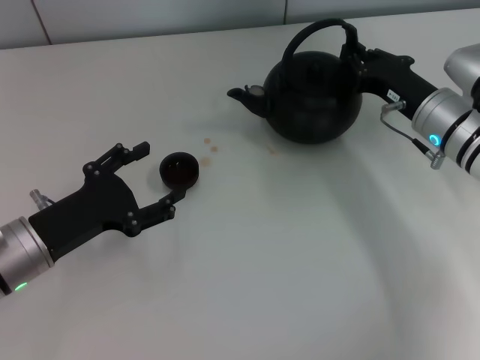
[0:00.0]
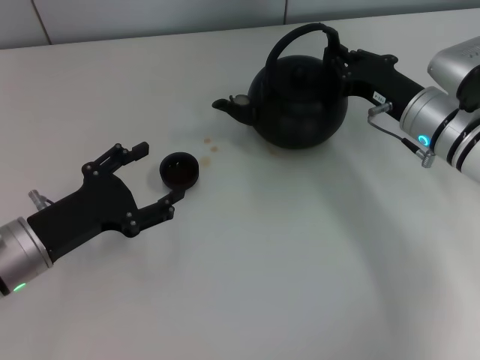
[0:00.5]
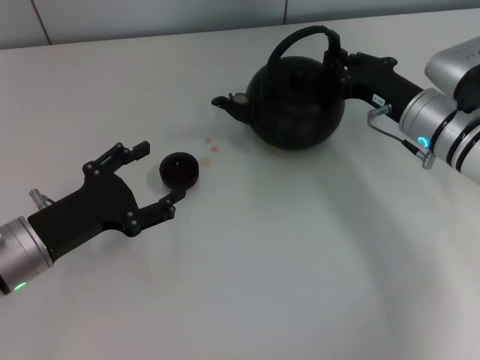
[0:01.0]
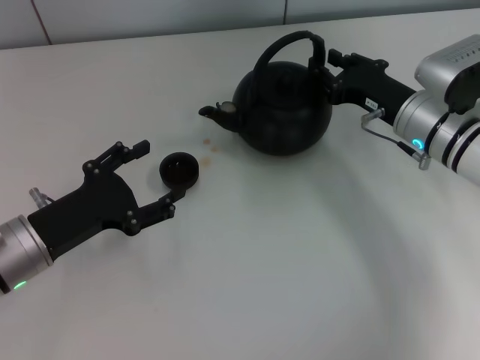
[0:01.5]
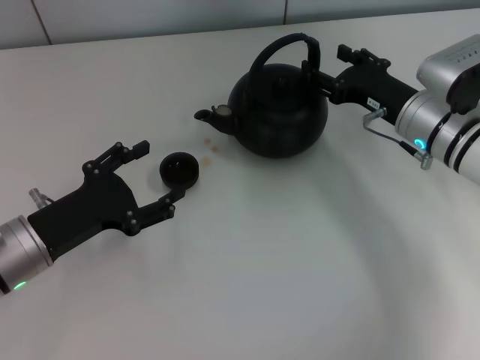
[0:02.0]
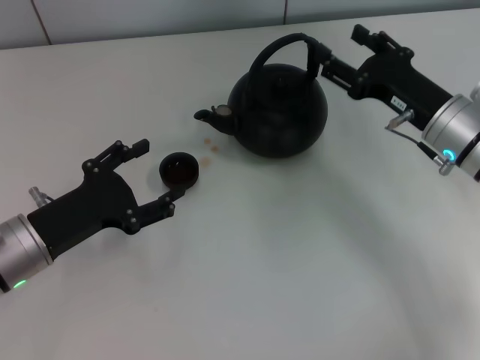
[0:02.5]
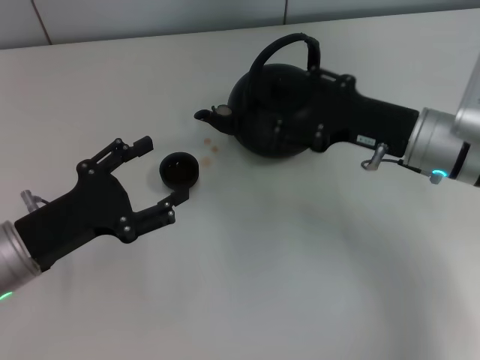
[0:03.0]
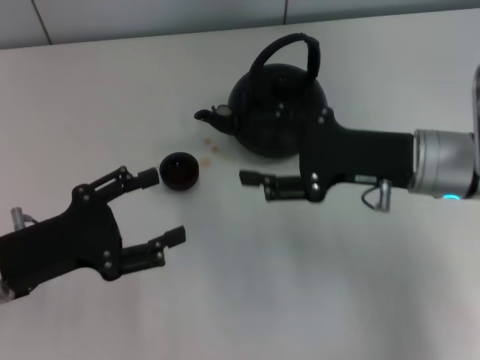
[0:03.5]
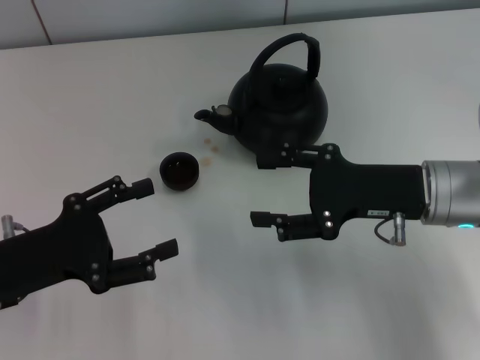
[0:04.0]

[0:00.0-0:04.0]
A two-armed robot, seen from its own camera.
Task of the whole recording: Grasp the handle of the teapot with one hand and pour tea into the teacup.
Step, 0:00.0 to 0:02.0: Put down the teapot with the right gripper.
0:00.0 to 0:02.0: The right gripper opens its fingers.
0:02.0 to 0:04.0: The left gripper shifts by roughly 5 cm. The right gripper moves backward, some 10 cm.

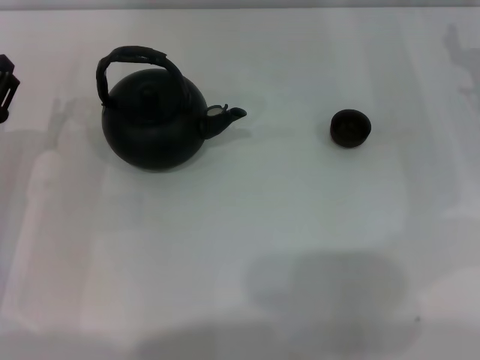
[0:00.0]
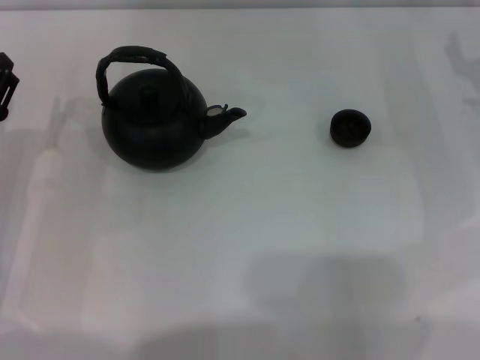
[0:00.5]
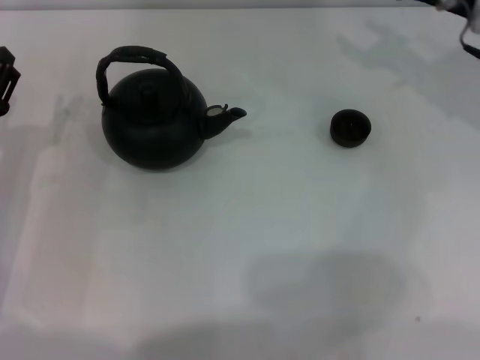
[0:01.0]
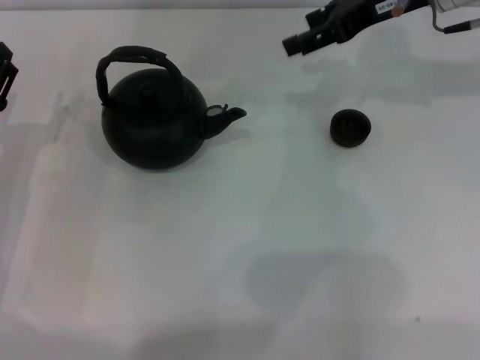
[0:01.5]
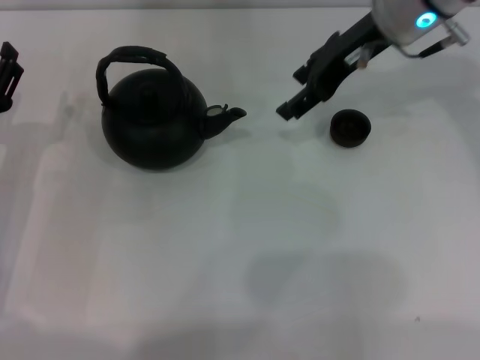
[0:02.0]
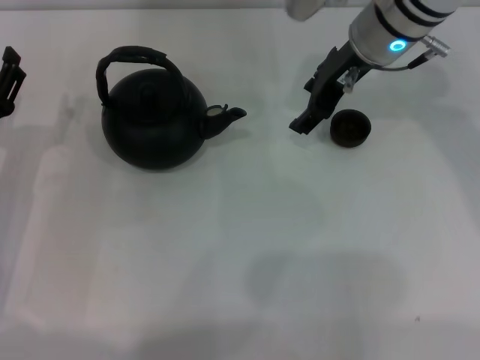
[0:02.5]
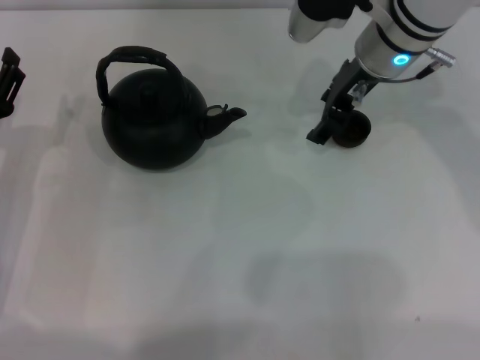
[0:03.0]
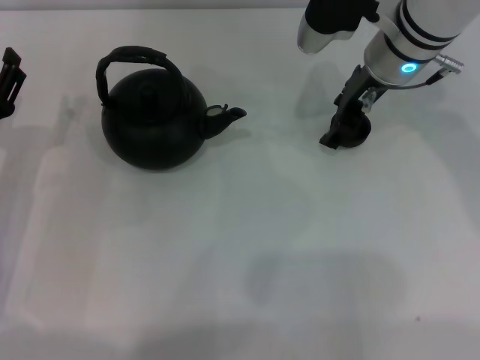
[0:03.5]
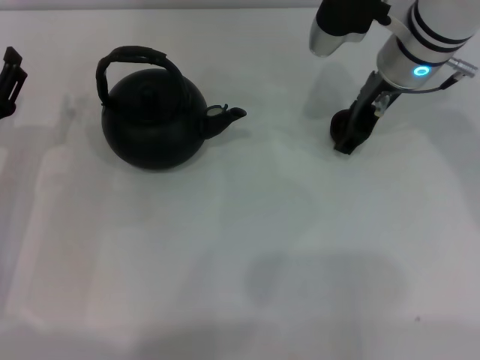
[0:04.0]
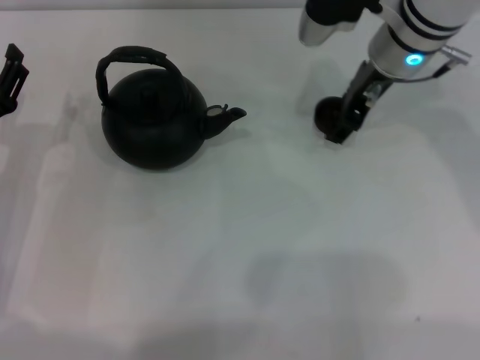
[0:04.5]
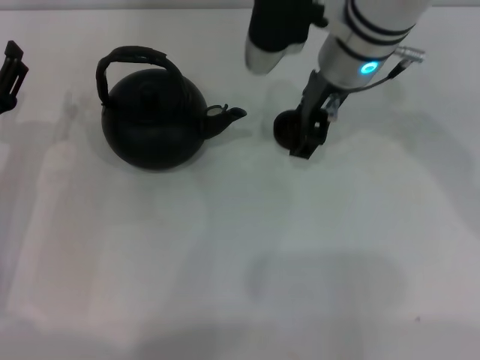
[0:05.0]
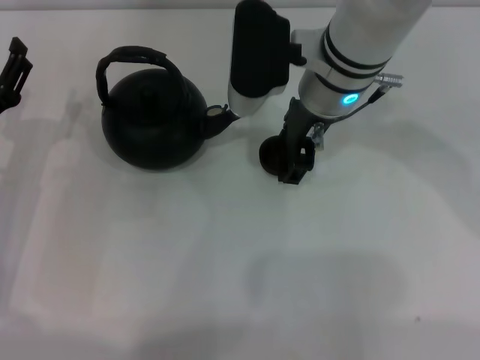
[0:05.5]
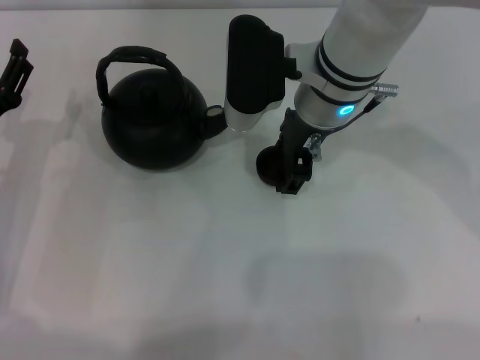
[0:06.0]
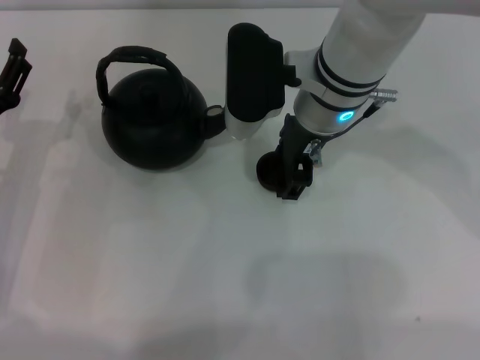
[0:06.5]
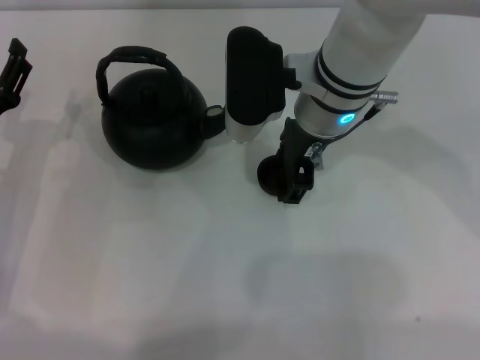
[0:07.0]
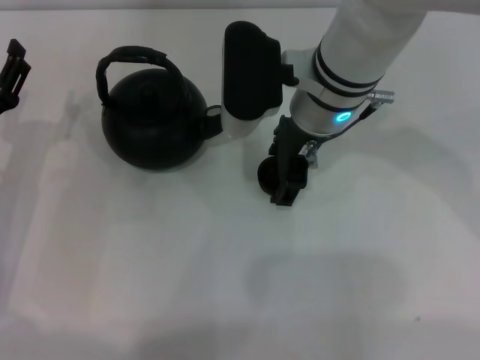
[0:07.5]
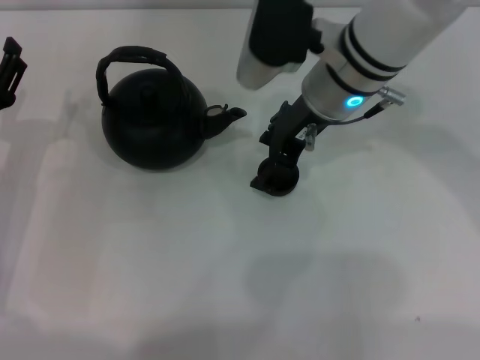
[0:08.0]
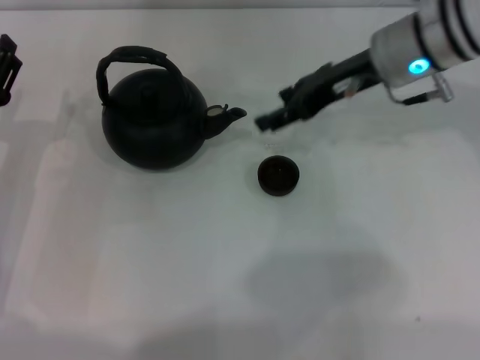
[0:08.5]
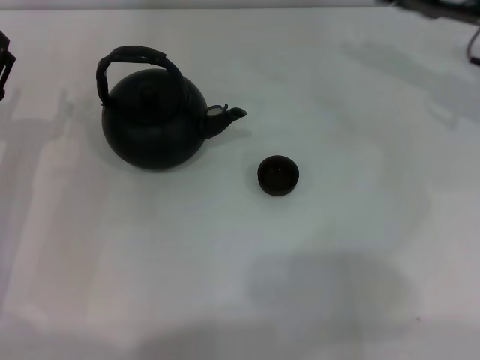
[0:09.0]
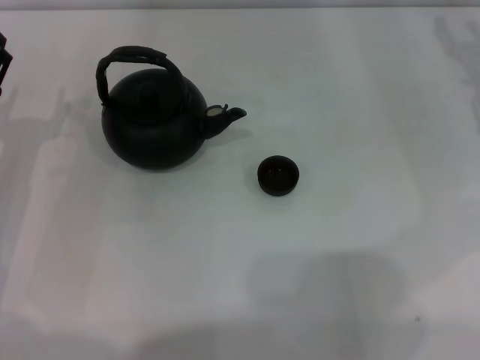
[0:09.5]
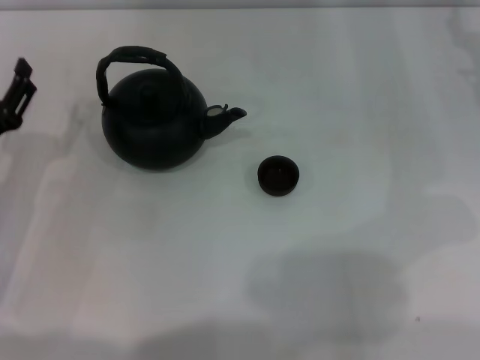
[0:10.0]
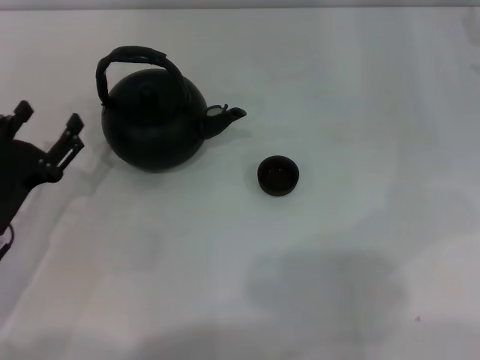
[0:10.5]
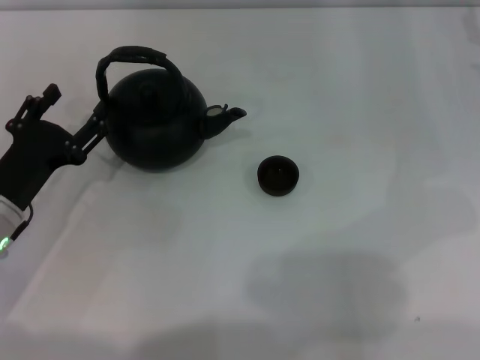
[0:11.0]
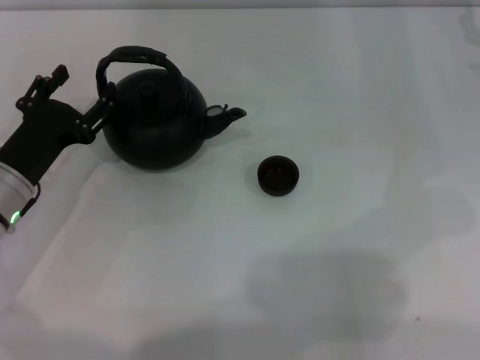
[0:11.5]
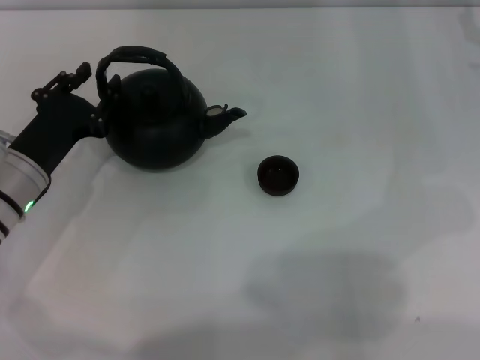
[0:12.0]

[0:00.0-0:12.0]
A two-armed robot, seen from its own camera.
Task of the whole recording: Grasp the handle of the teapot with one hand and pour tea into the teacup.
Step, 0:00.0 to 0:04.0: Pick up the teacup with the right gripper.
Step, 0:05.0 to 0:08.0: Place the teacup in the center of view with the right gripper.
0:00.0 to 0:02.0: The right gripper goes some 20 cm to the left and upward.
0:04.0 to 0:06.0: The right gripper is displaced to the left by roughly 10 cm.
0:06.0 to 0:08.0: The right gripper opens up.
0:08.0 to 0:10.0: The right gripper goes approximately 20 cm to the right.
0:10.0 to 0:12.0: The left gripper changes place by some 5 cm.

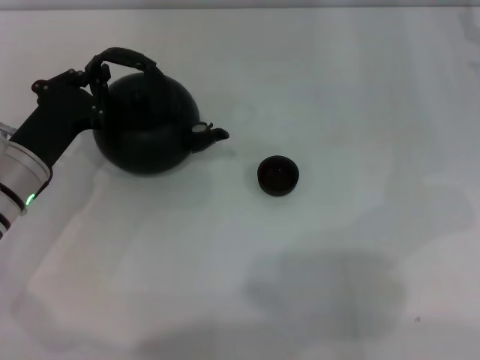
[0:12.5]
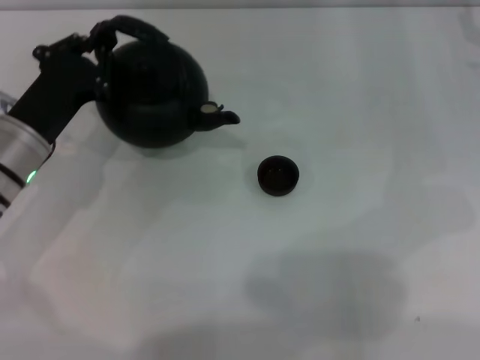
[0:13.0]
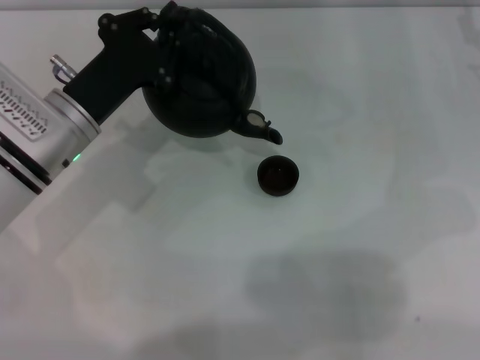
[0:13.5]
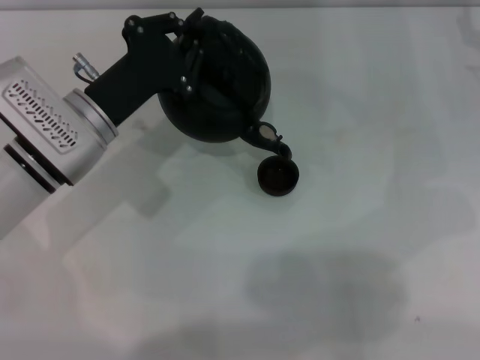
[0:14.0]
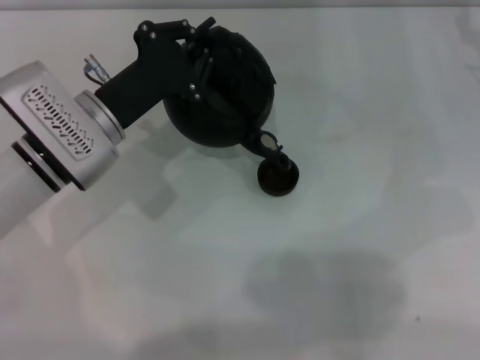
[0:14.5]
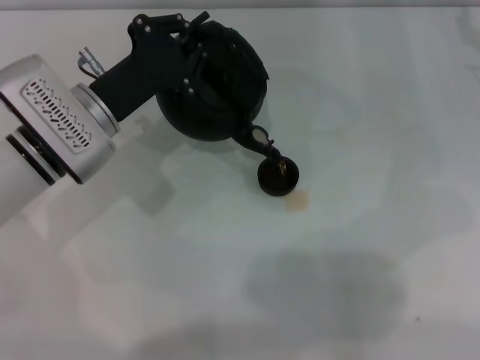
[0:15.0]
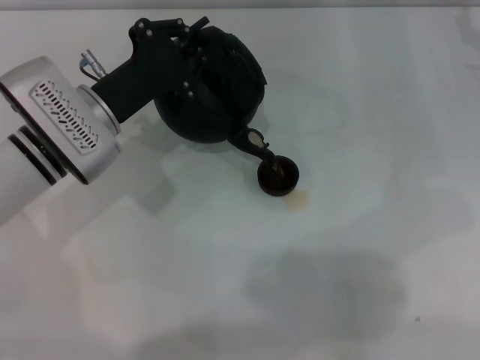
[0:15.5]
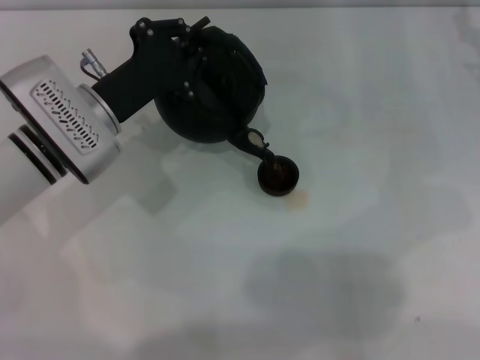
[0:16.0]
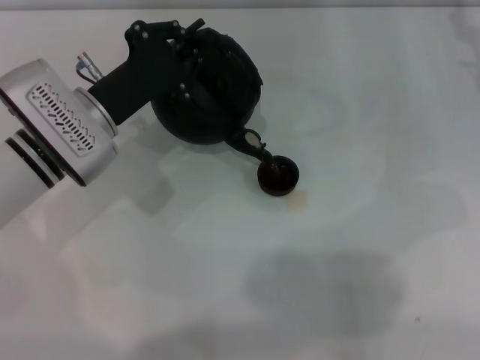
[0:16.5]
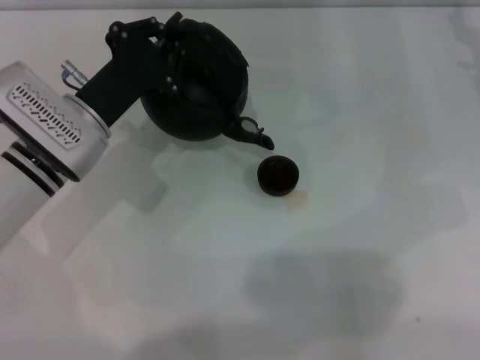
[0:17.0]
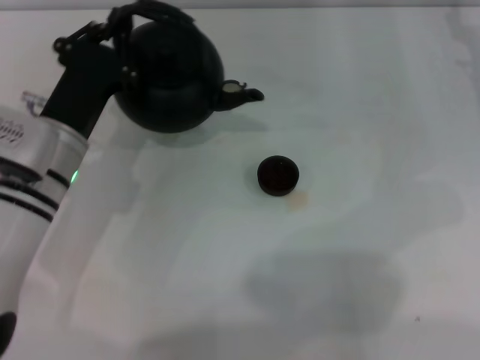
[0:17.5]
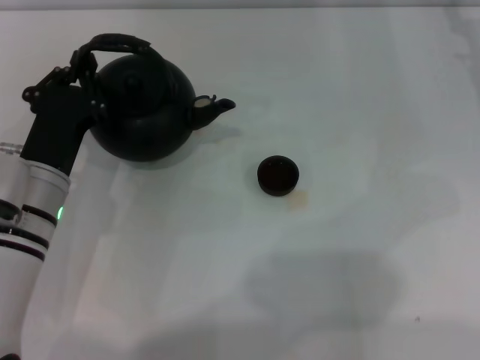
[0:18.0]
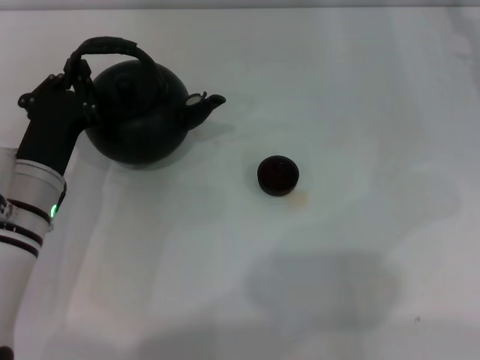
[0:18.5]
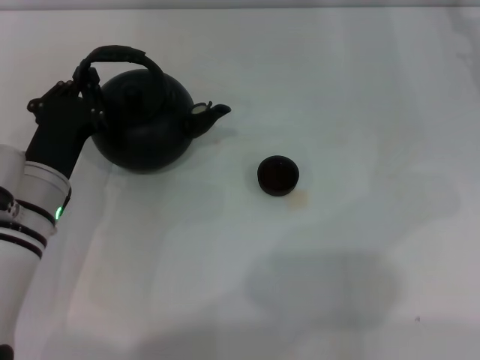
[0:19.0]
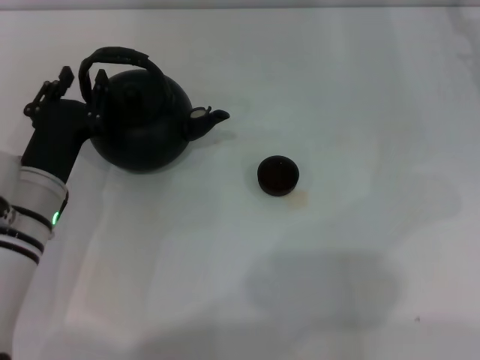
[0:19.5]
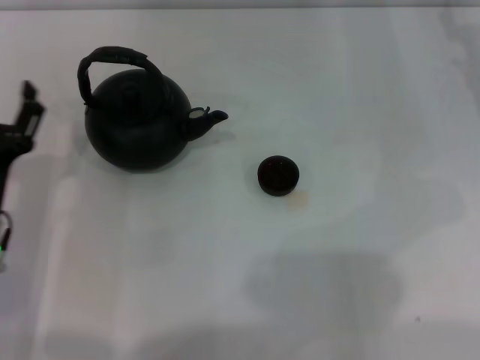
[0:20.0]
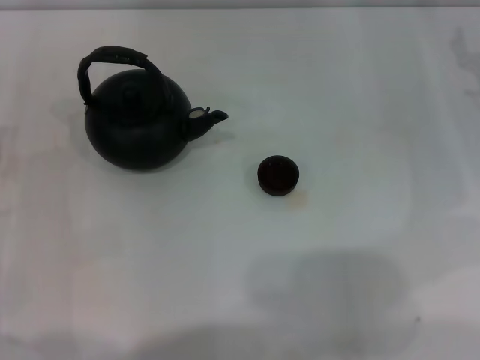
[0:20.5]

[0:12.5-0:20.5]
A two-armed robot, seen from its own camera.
Task of the whole recording: Grasp the handle of the teapot with one hand and pour tea into the teacup.
Step, 0:13.5 to 0:17.0: Pour tea into the teacup with the left gripper.
Step, 0:17.5 to 0:19.5: Put down the teapot with the left gripper.
0:12.5 to 0:14.5: The left gripper moves to the right, roughly 5 cm.
0:14.5 to 0:16.5: Neither gripper changes place.
0:16.5 to 0:18.5: The left gripper goes roughly 5 cm backward.
0:18.5 to 0:20.5: The right gripper shifts about 5 cm backward. Meanwhile the left gripper travels to the left by about 10 cm, and opens.

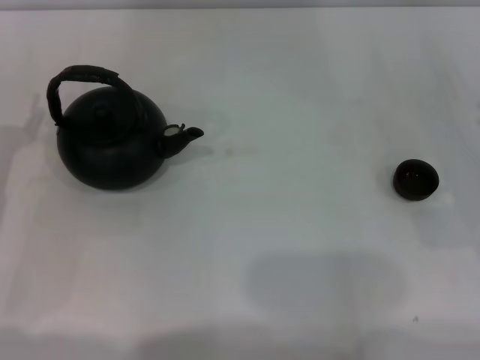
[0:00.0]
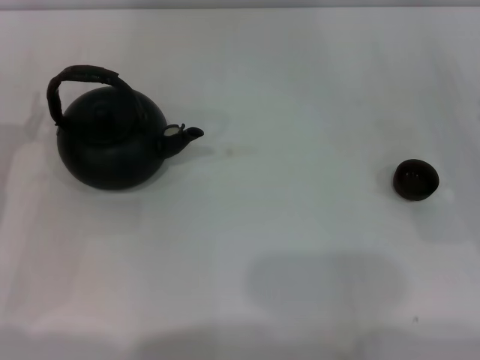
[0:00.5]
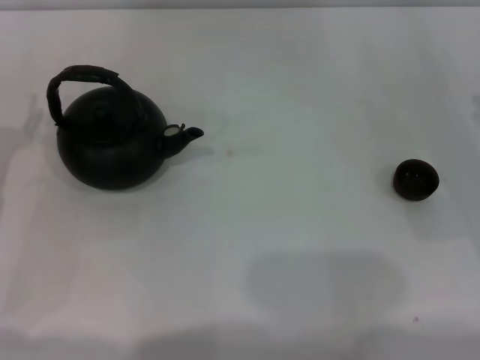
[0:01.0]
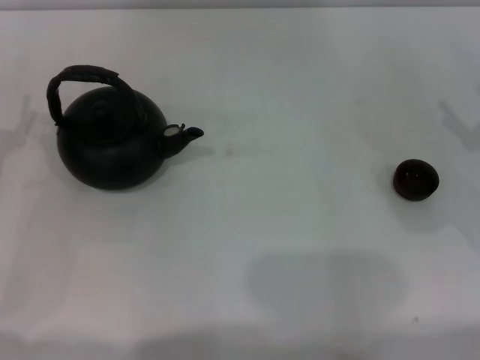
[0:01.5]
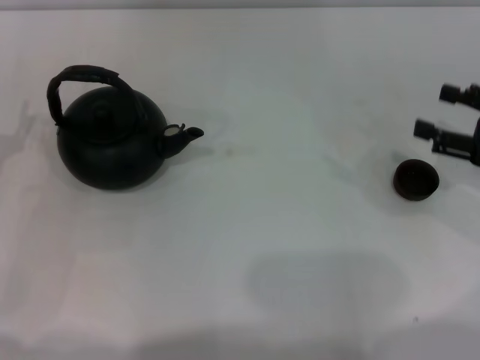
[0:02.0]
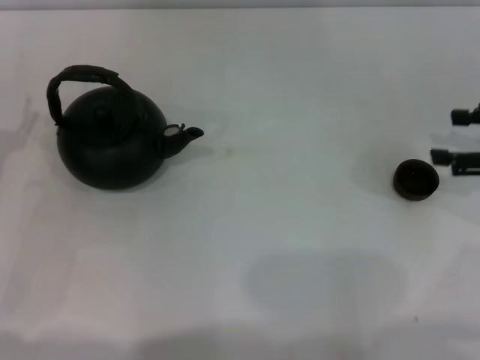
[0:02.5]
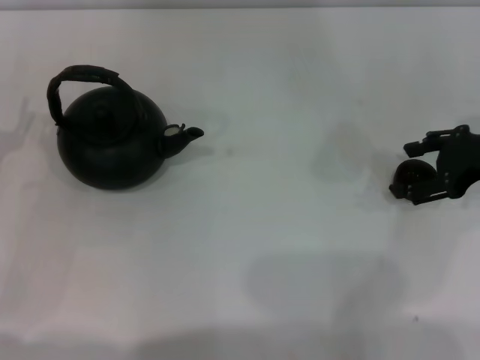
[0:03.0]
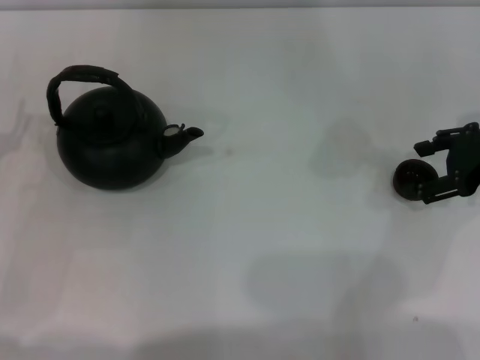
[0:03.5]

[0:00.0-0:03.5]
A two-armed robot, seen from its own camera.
Task of the whole recording: Grasp the handle of the teapot with one hand and pour tea into the teacup.
0:00.0 to 0:02.0: The right gripper changes place by approximately 5 cm.
0:02.0 to 0:03.5: The right gripper moves roughly 5 cm.
